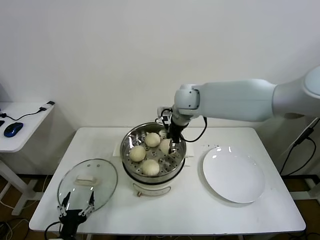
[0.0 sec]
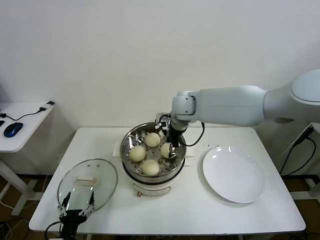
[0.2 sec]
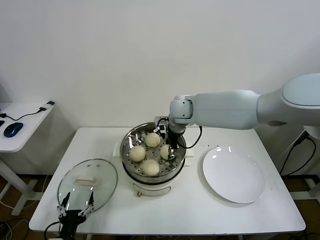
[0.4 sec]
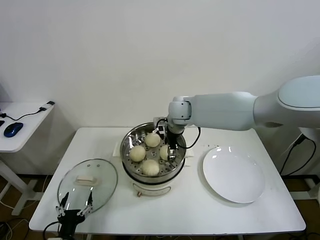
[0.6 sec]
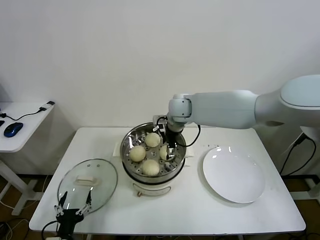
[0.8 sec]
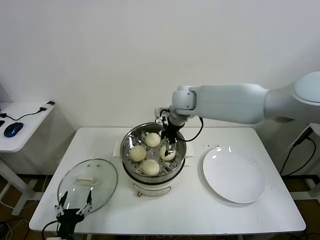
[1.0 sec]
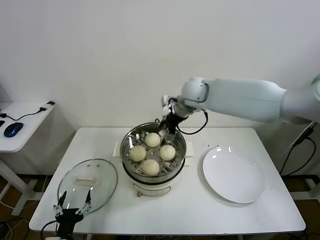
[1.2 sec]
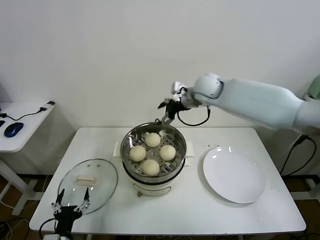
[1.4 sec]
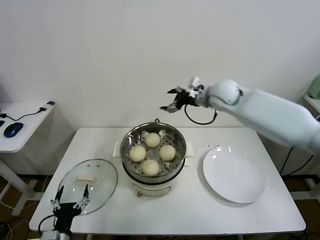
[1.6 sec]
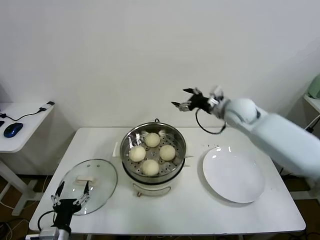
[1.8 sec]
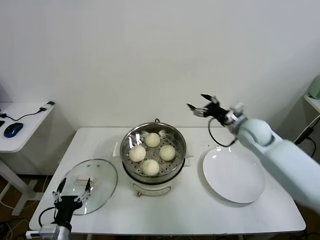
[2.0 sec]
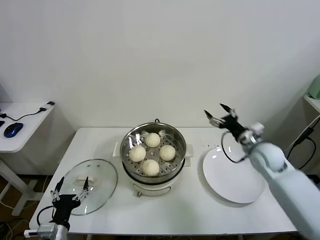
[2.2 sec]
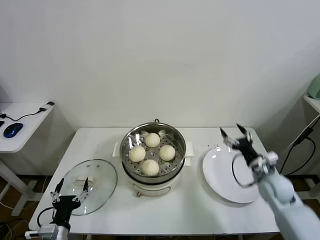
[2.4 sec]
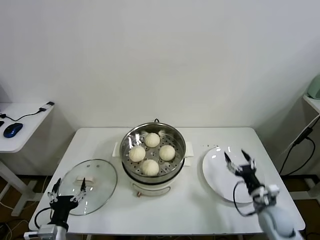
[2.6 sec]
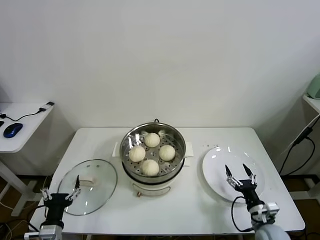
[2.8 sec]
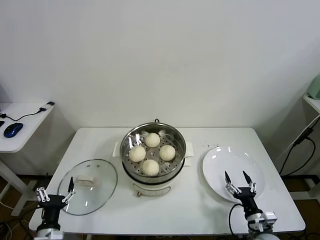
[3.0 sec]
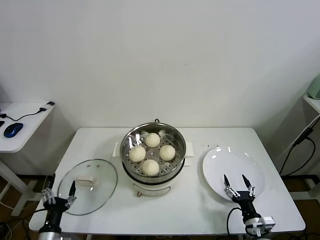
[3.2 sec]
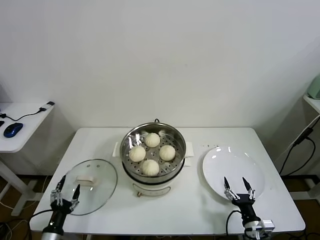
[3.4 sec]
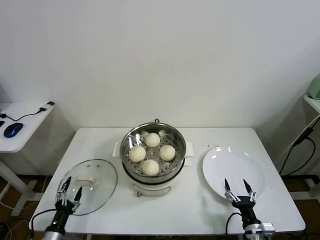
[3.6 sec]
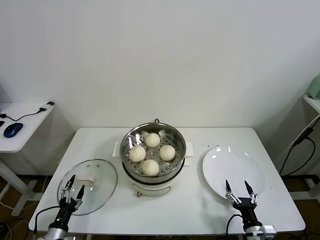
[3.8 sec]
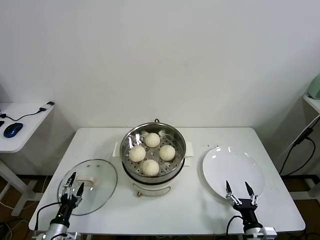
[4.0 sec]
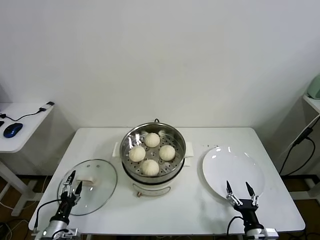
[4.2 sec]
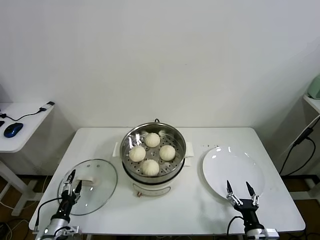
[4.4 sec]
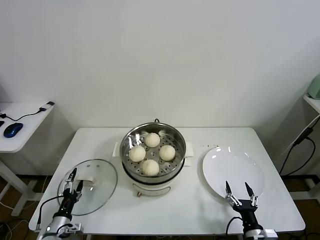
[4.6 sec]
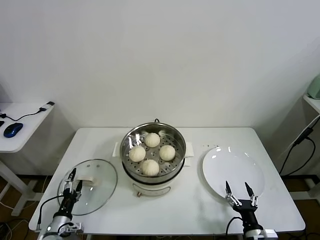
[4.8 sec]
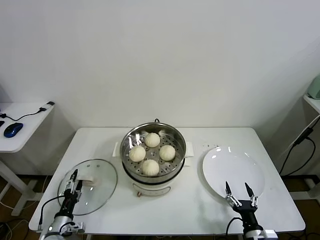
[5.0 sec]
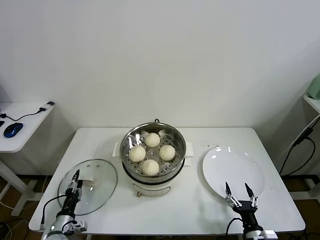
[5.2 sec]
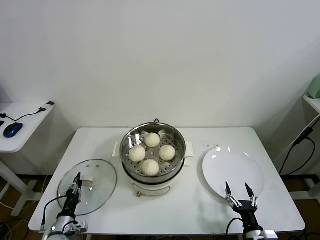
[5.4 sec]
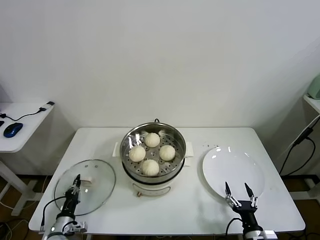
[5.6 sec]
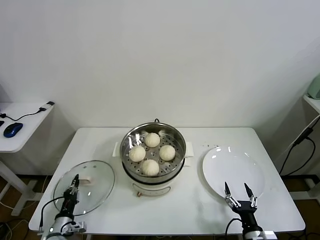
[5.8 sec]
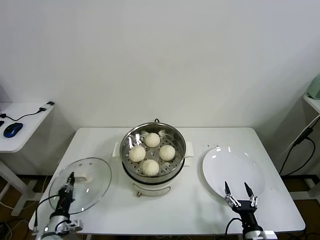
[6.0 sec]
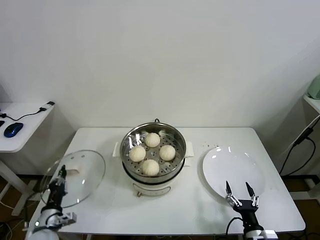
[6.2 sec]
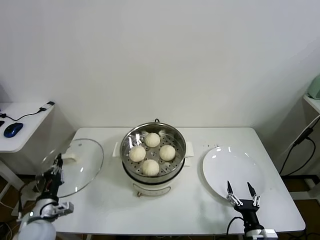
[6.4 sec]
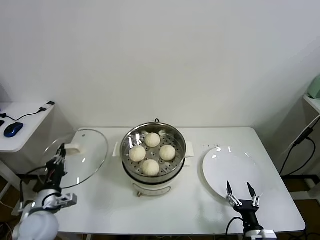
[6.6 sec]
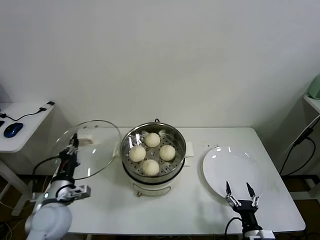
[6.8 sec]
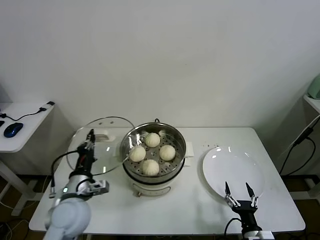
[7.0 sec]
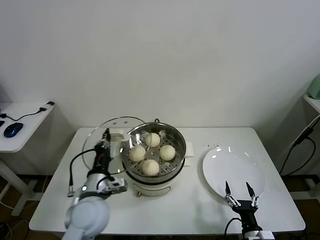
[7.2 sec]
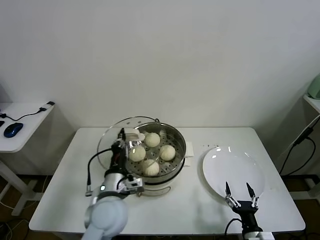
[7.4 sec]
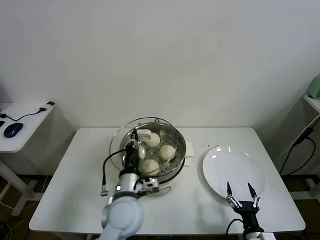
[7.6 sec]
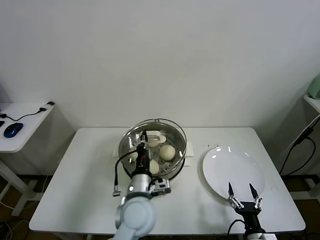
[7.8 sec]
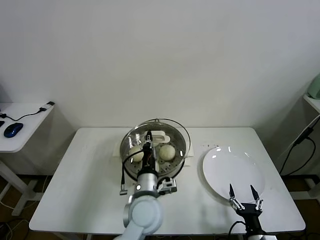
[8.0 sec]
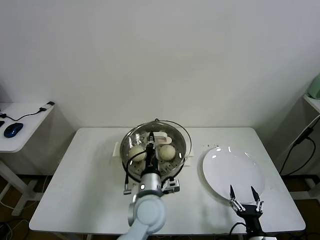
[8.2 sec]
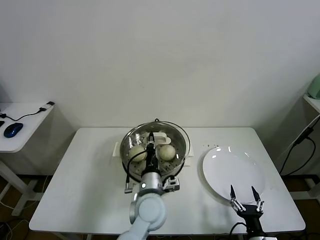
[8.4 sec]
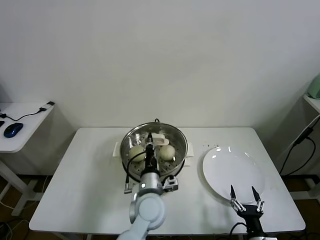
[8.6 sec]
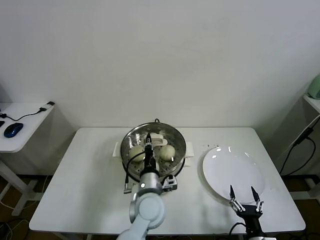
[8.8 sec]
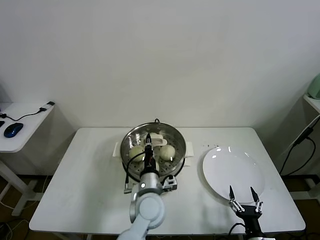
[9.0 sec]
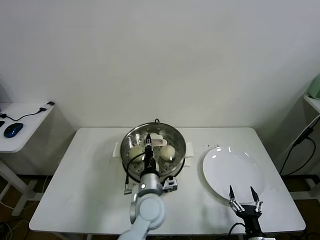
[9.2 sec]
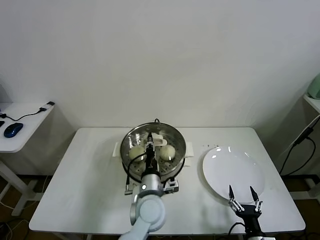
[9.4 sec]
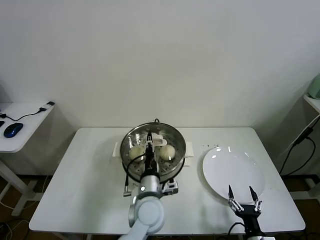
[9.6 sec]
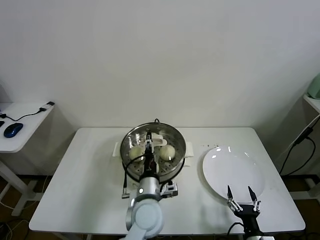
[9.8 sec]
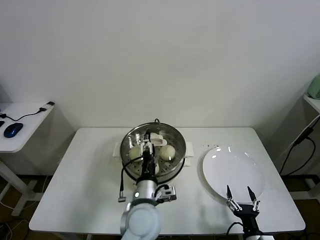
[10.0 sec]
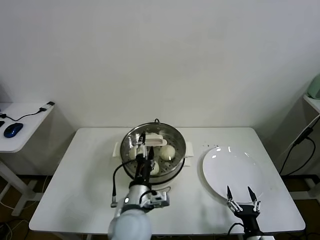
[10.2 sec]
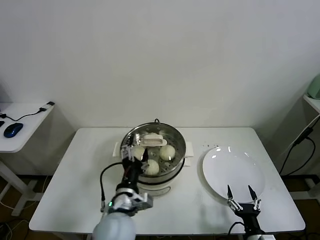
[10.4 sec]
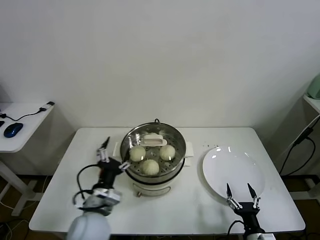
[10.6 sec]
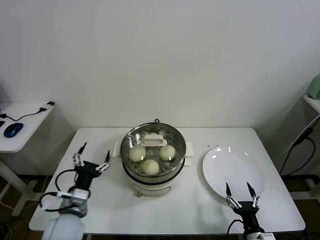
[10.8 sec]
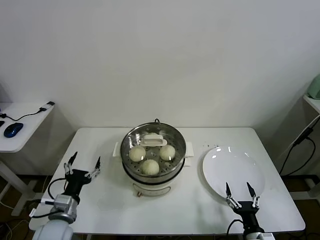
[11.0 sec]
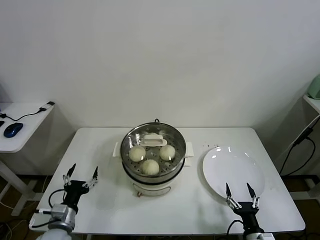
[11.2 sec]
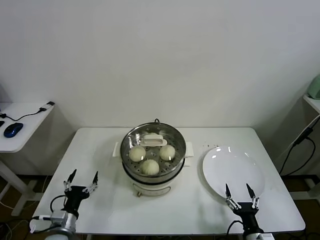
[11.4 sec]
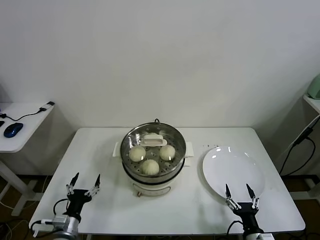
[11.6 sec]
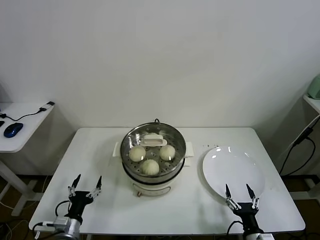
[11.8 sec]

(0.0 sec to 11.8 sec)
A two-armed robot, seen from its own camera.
Task of the whole recording: take steamed baozi put them in steamer.
Step, 1.0 sec - 5.6 sec: Grasp the pot lid with left gripper.
Step, 5.8 sec - 10.0 sec: Place the pot lid on the steamer with left gripper.
0.0 sec - 1.4 sec: The right gripper shifts some 5 cm to the right, and opens.
1.4 sec - 3.0 sec: The right gripper travels downward, backward and to the right by roughly 60 cm. The left gripper changes place by approximately 5 cm.
3.0 sec - 4.4 sec: The right gripper moves roughly 5 cm; the left gripper goes about 10 cm downward.
4.4 sec - 6.0 sec: The left gripper closes up.
6.0 sec - 7.4 sec: The left gripper goes some 30 cm to the right and upward.
7.4 sec - 8.8 sec: The left gripper travels to the right and downward by approximately 15 cm.
8.8 sec - 10.4 sec: The left gripper shifts some 10 cm to the left and backward, and opens up.
10.4 sec - 11.8 sec: The left gripper goes roughly 25 cm to the left and downward.
